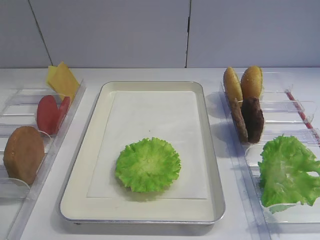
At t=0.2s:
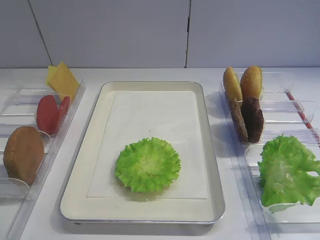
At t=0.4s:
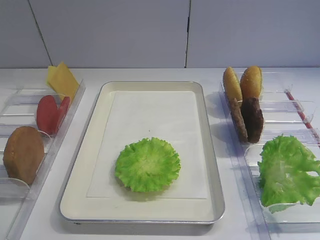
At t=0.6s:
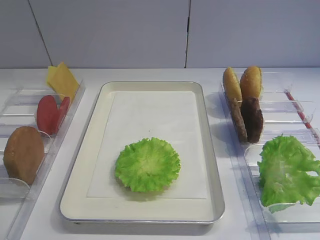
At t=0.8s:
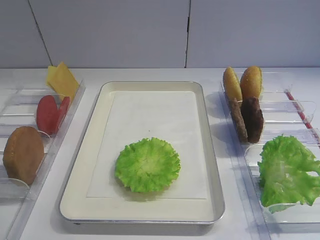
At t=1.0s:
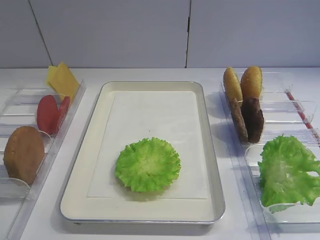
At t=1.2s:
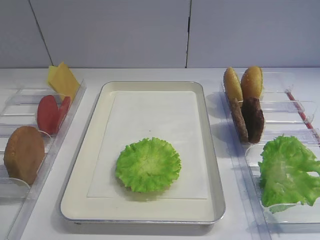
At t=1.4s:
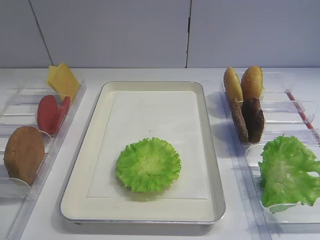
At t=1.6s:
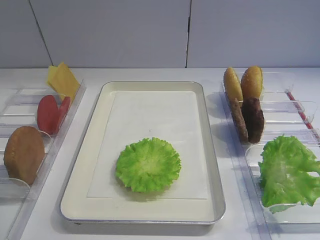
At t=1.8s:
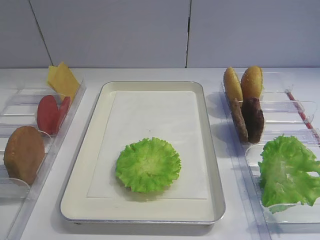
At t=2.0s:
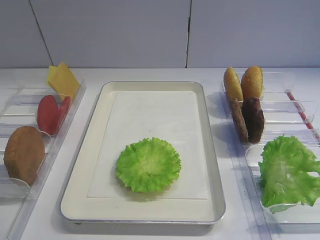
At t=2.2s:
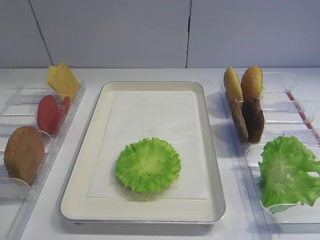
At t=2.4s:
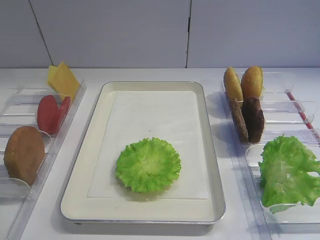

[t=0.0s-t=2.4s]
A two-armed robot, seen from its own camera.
t=1.2s to t=2.4s: Both grippers stay about where they are.
